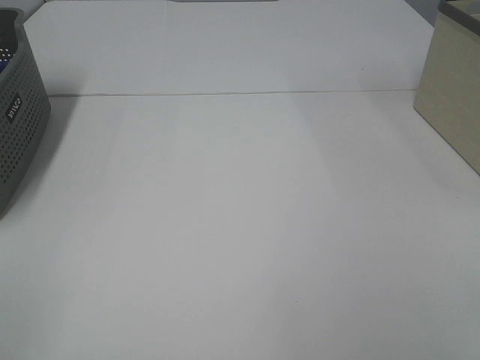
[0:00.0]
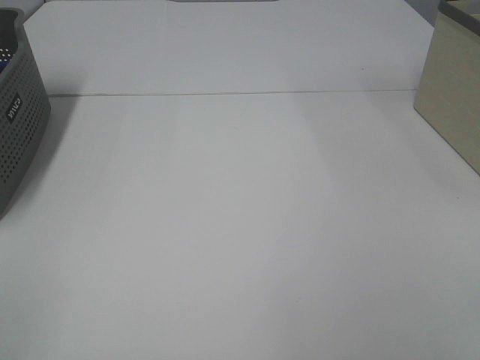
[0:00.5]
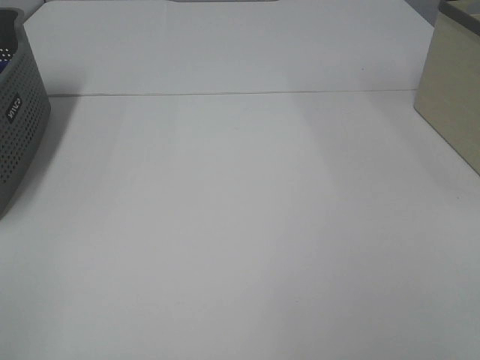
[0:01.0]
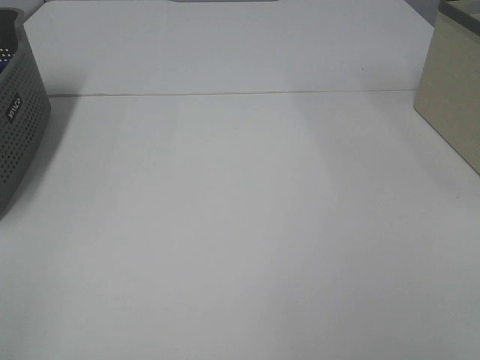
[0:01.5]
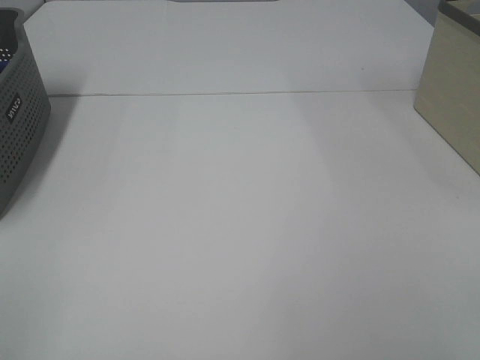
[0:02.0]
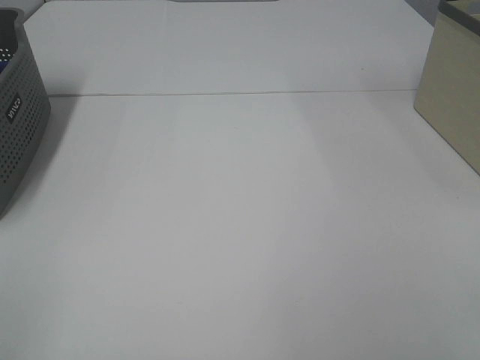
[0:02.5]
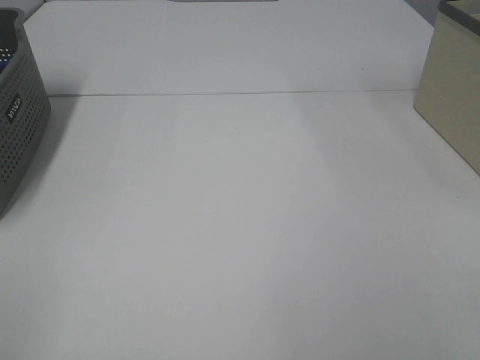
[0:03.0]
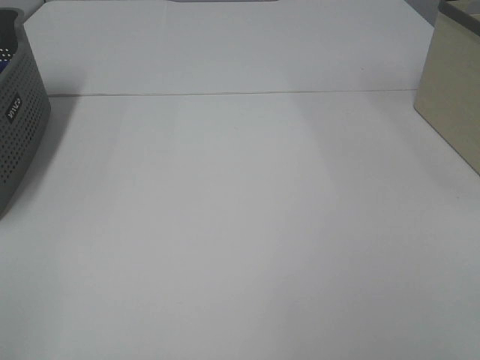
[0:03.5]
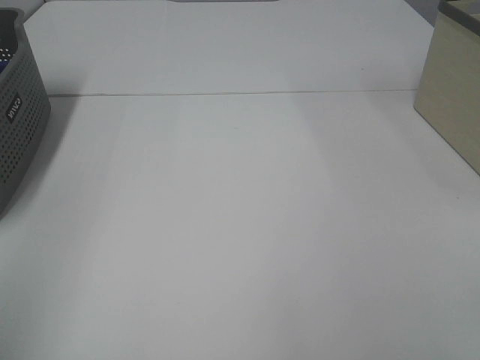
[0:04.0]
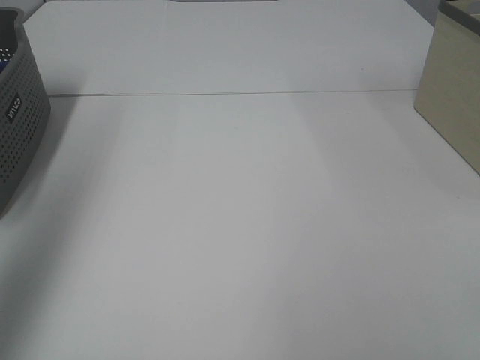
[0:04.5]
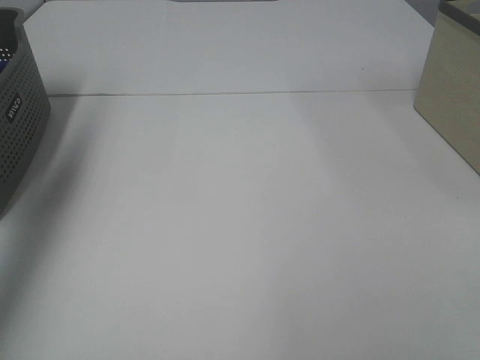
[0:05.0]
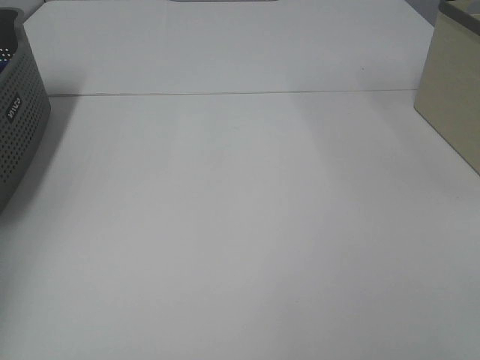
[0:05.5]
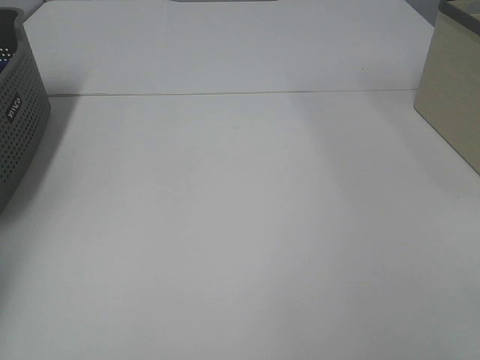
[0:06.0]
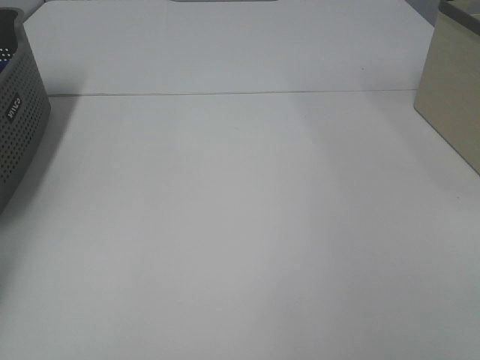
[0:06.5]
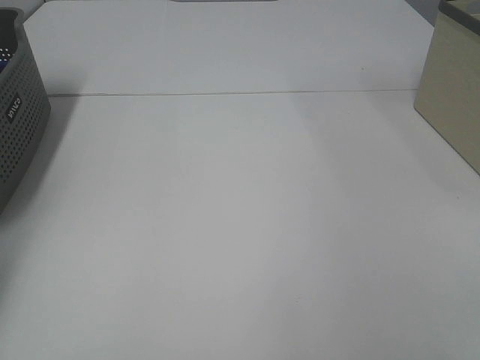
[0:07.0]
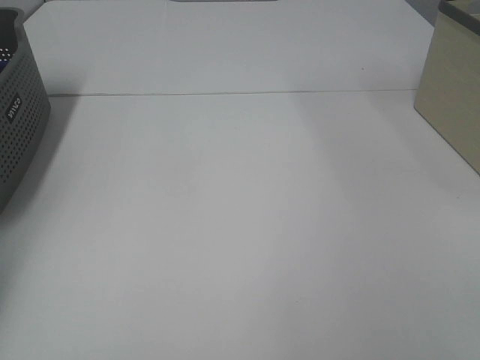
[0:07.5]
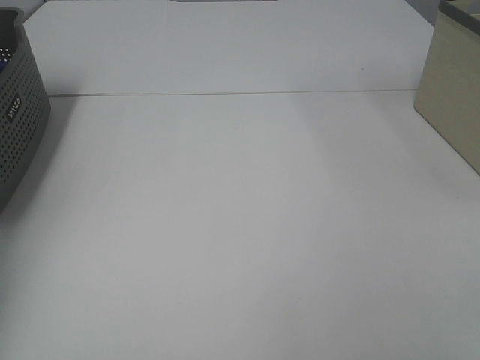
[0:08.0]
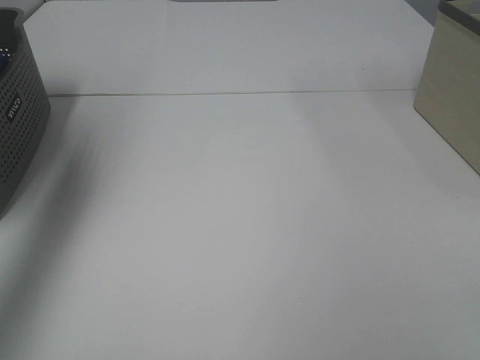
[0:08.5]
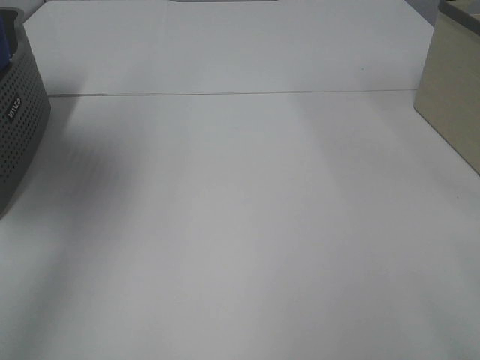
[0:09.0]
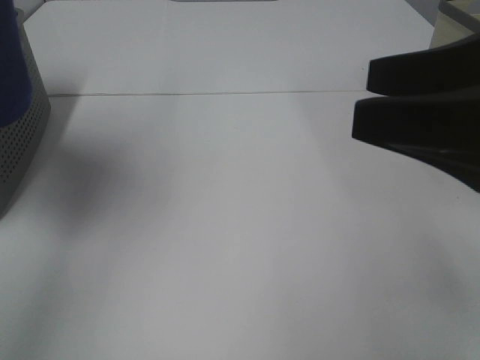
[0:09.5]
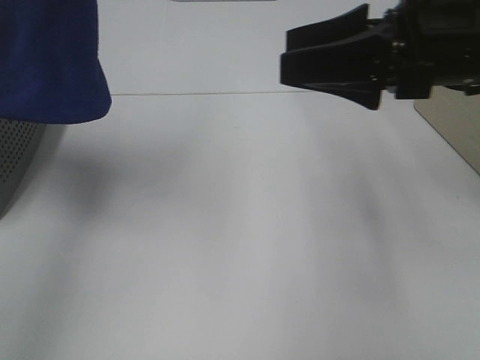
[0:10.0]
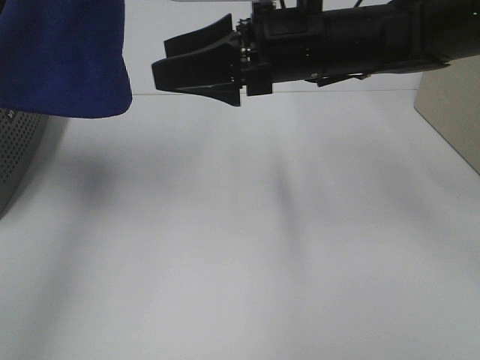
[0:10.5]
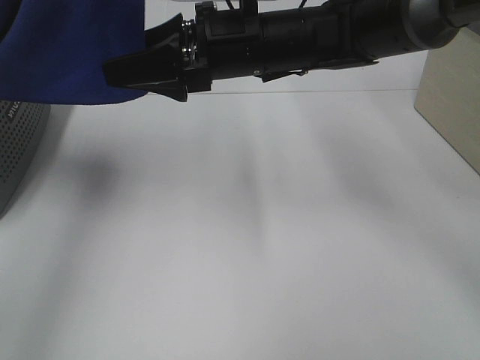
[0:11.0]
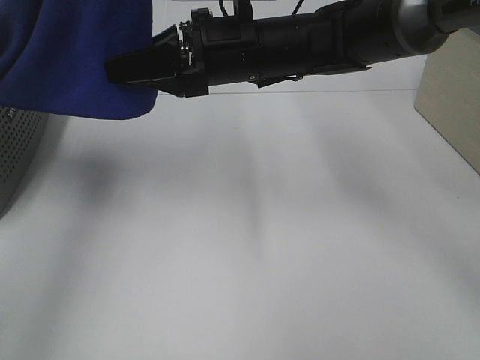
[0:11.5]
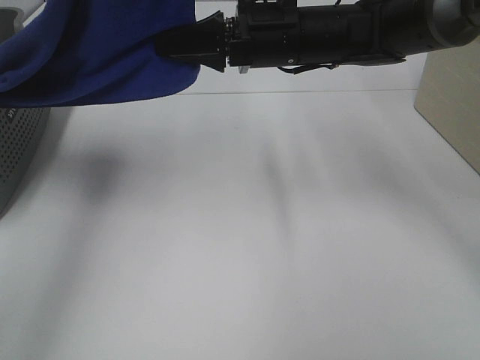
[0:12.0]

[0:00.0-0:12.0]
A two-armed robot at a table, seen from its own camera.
Task of the whole recording: Remove the towel and place it.
Step, 0:08.5 to 0:11.5: Right hand: grab a corner of the blue towel and straighten it.
0:00.0 to 0:02.0: Neither gripper changes place.
0:04.0 to 0:06.0: The left gripper is displaced forward by some 35 cm.
0:08.0 to 0:10.0: The left gripper travels to the right, upward and backward by approximately 30 cm, while the right gripper is displaced forward by approximately 30 cm.
0:10.0 to 0:12.0: The right gripper heads to the left and forward, covering approximately 15 cm, and closes.

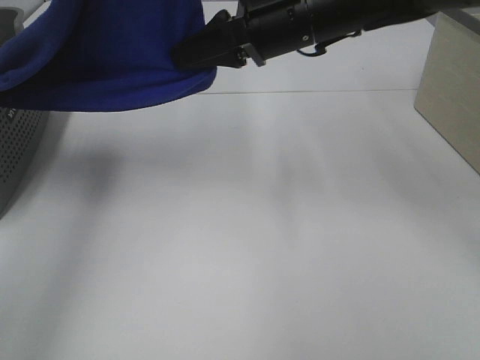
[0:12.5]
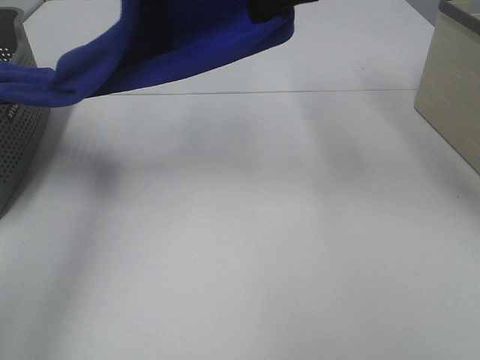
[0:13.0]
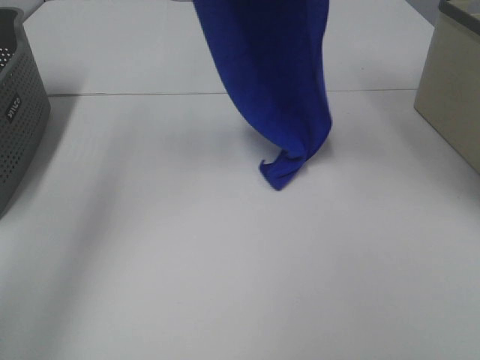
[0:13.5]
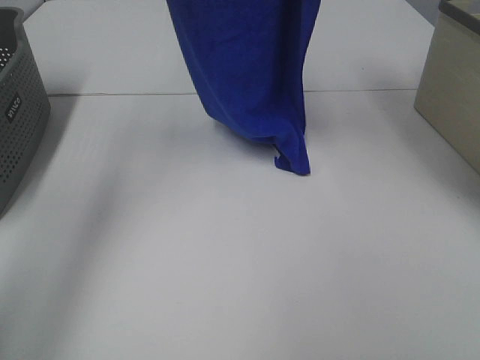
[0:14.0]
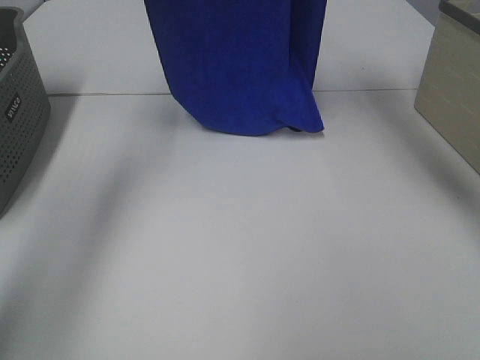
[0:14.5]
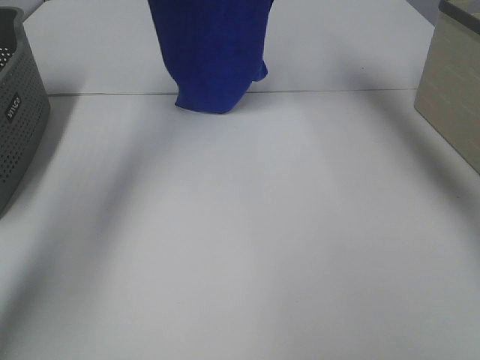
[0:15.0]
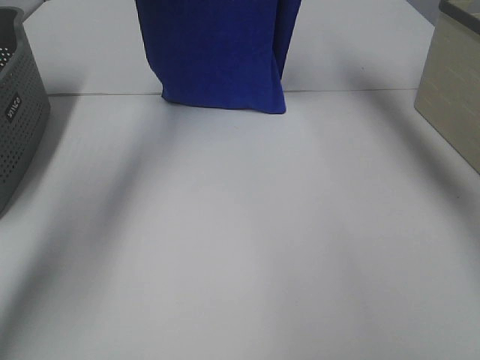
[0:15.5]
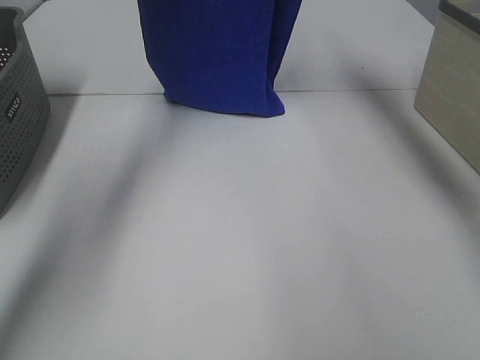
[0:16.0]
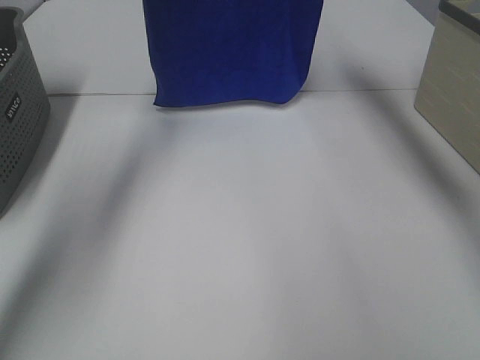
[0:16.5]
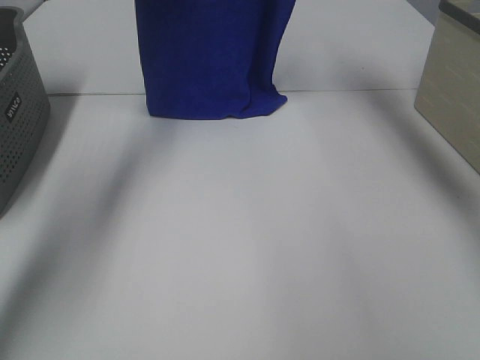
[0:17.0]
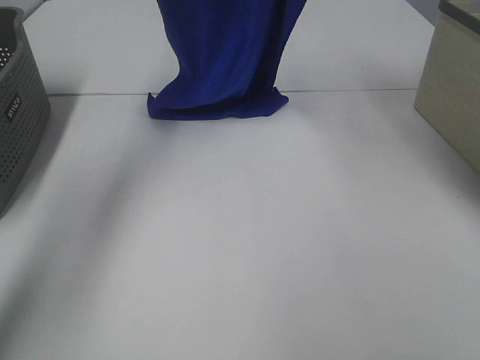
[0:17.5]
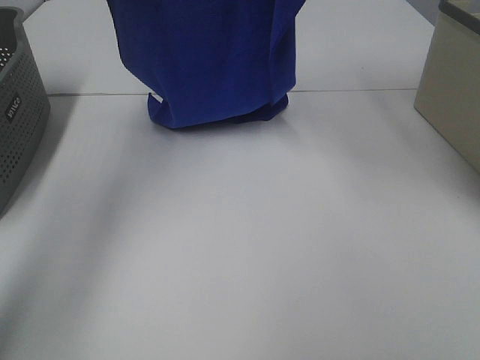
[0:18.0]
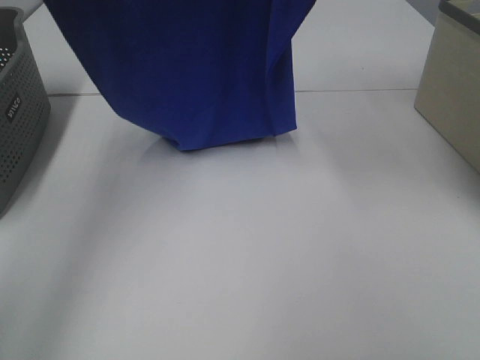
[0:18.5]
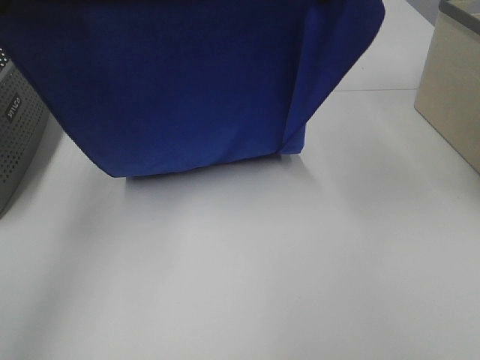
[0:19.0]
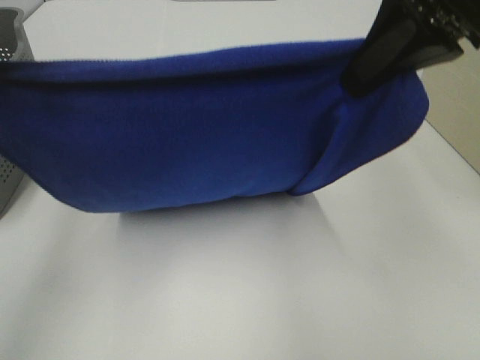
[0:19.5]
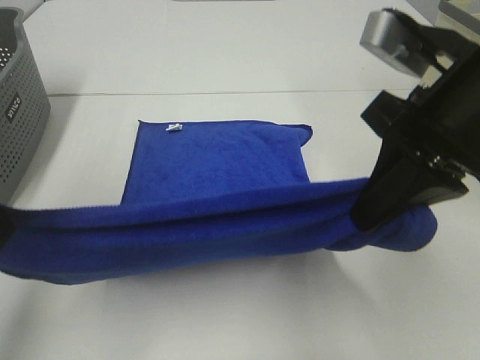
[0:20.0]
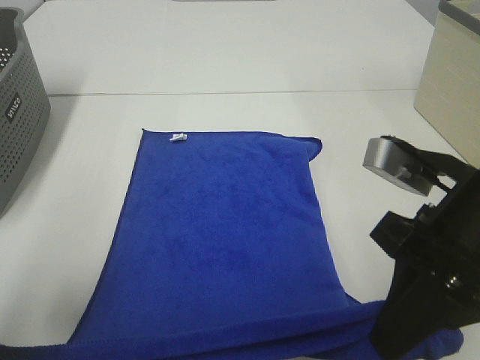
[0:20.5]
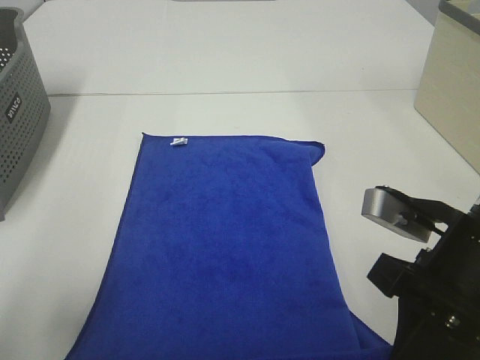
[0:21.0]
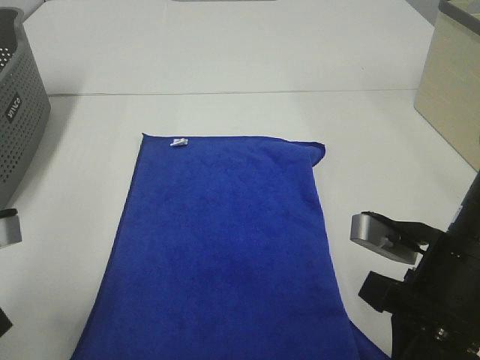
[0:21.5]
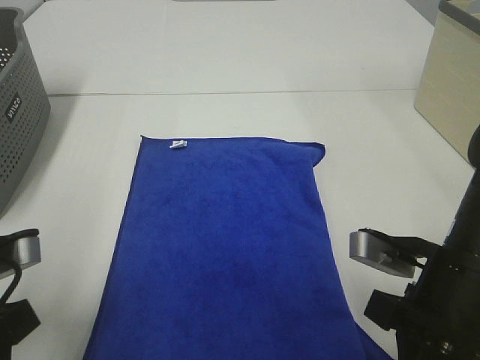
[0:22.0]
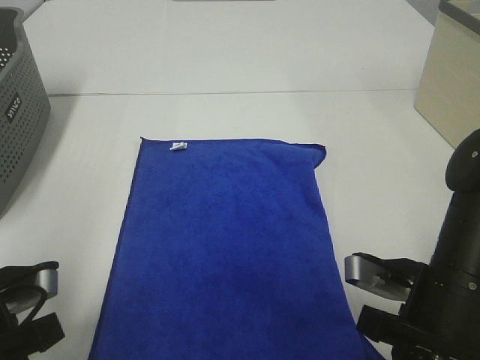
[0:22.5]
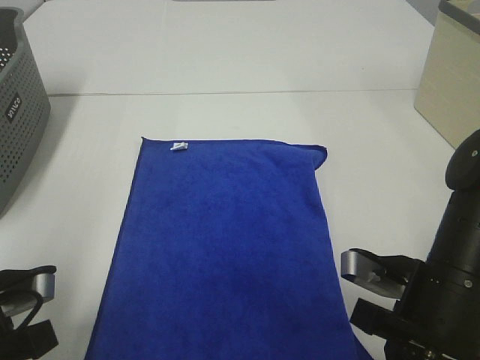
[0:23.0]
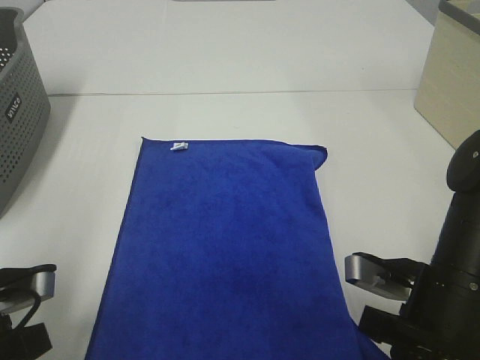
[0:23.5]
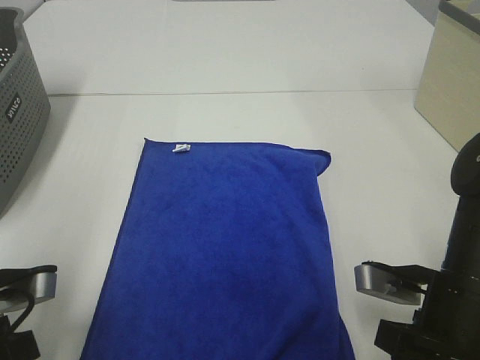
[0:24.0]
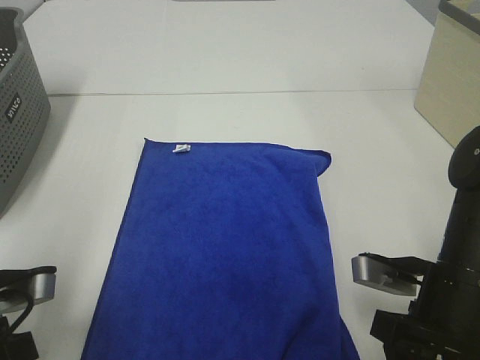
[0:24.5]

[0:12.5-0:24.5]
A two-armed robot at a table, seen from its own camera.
Task of the whole recording: Remove the towel and place it.
Step, 0:12.5 to 0:19.5: Left hand: spread the blue towel flat on the table.
Step, 0:12.5 to 0:19.5: Right hand: spread the blue towel flat on the table.
0:12.5 to 0:14.5: The right gripper is displaced upward and forward by approximately 20 cm, while the left gripper is displaced forward by approximately 15 cm.
0:14.5 to 0:16.5: The right gripper shifts about 5 cm forward.
0:16.5 to 0:18.5: The two grippers go approximately 15 cm backward.
0:18.5 to 0:20.5: The two grippers go some 30 cm downward and backward.
0:20.5 to 0:22.5: Both grippers travel together downward, some 10 cm.
0:22.5 to 0:24.5: The right gripper opens, while the left gripper opens up.

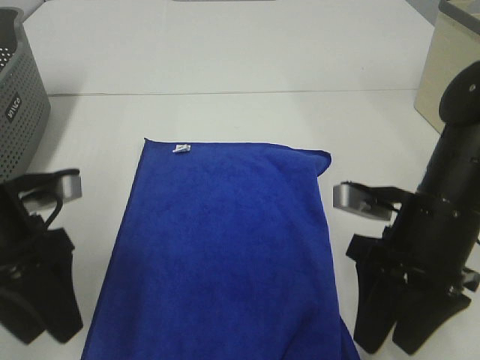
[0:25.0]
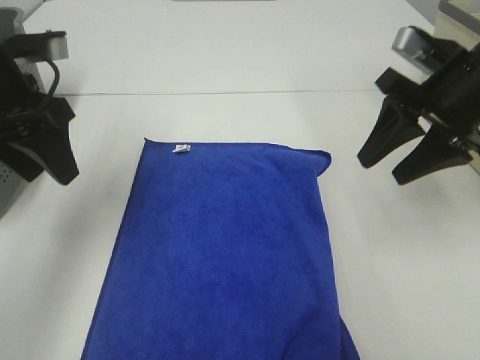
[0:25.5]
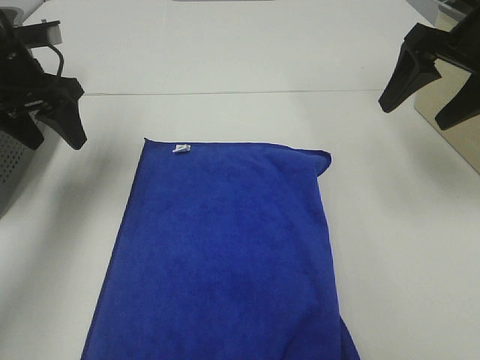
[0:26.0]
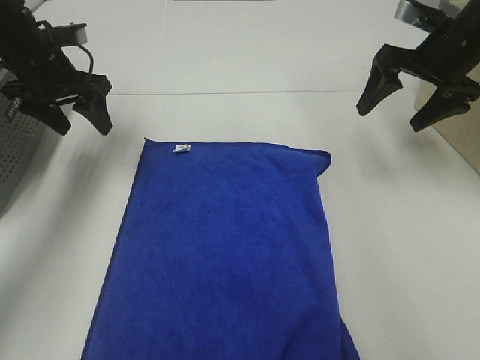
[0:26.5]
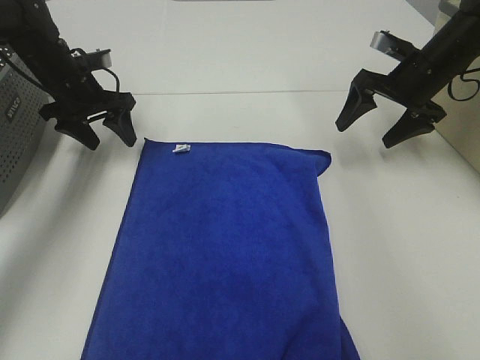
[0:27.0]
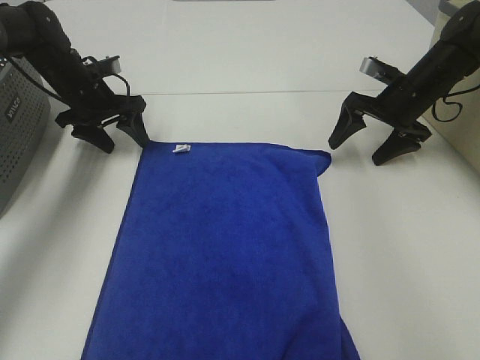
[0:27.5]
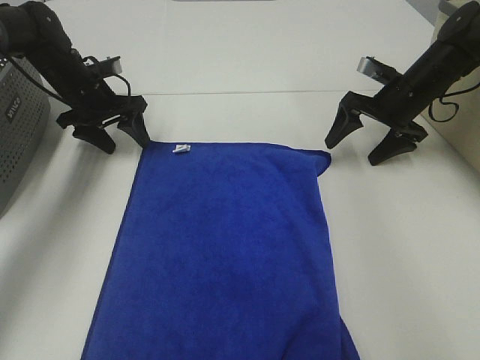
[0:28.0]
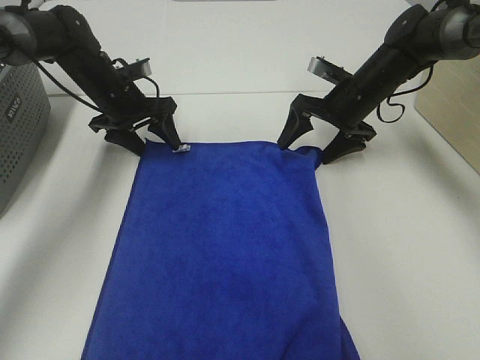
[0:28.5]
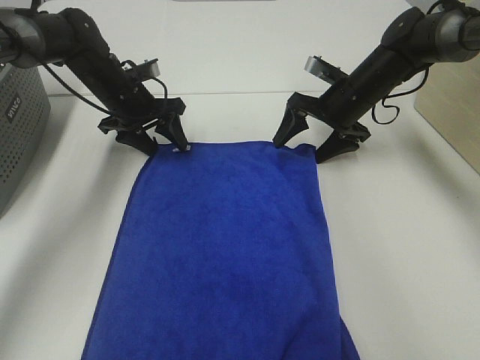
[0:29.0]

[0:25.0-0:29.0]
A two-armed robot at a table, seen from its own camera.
Task of the whole recording: Remove the towel and place it.
Step, 0:25.0 to 0:27.0: Left hand:adjust the blue towel.
Step, 0:25.0 to 0:27.0: Right hand:adjust the blue towel.
0:25.0 to 0:27.0: The grippers both shift forward by some 25 cm. The right gripper opens up.
0:27.0 to 0:29.0: The right gripper shifts about 10 cm to the left and downward. The left gripper moves to the right, approximately 5 cm.
